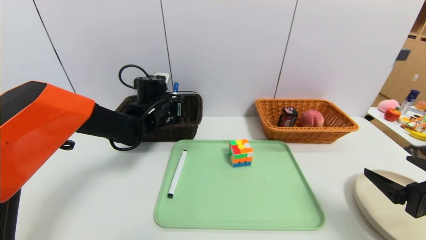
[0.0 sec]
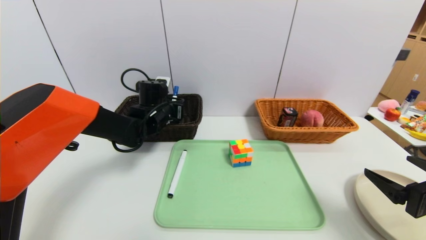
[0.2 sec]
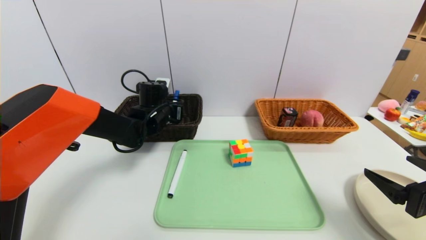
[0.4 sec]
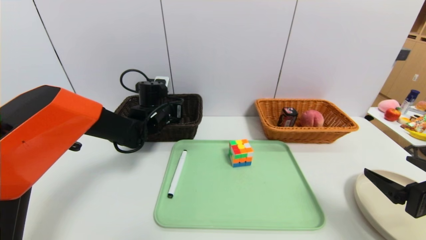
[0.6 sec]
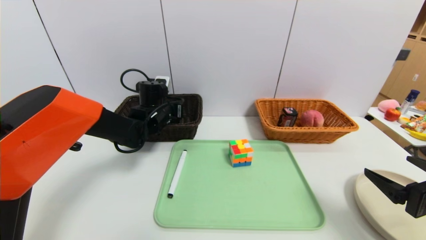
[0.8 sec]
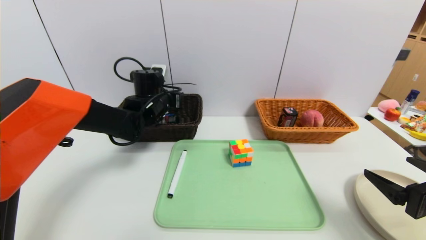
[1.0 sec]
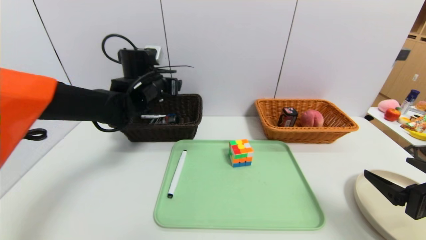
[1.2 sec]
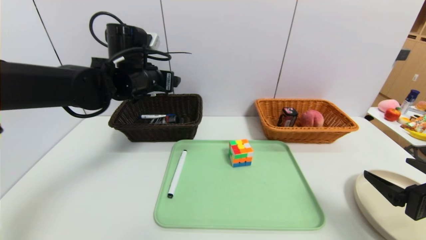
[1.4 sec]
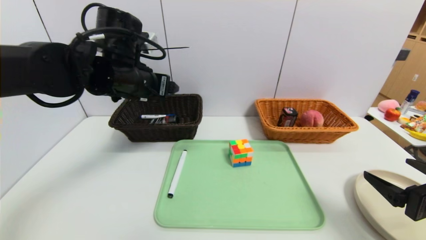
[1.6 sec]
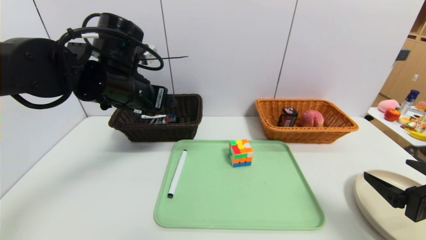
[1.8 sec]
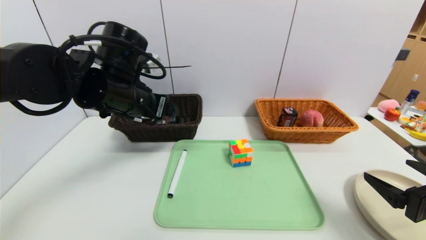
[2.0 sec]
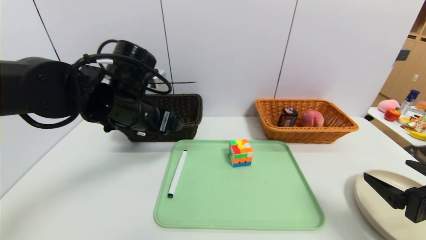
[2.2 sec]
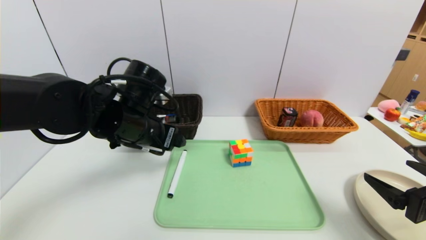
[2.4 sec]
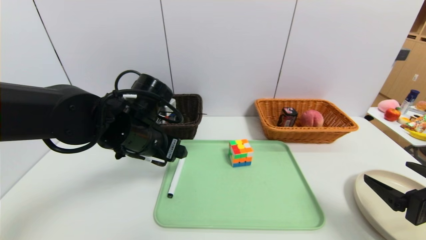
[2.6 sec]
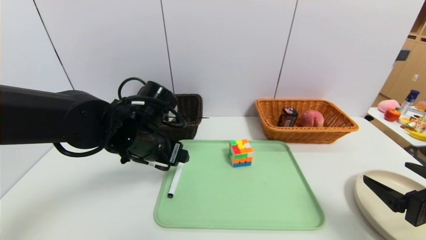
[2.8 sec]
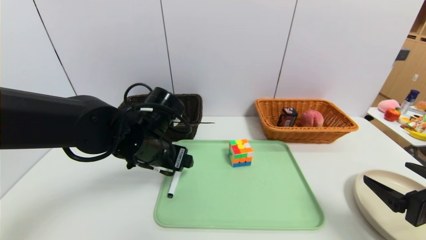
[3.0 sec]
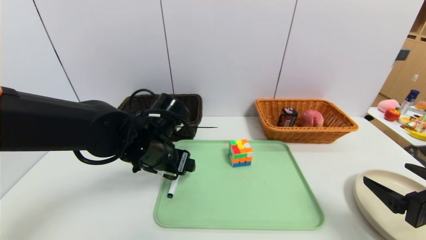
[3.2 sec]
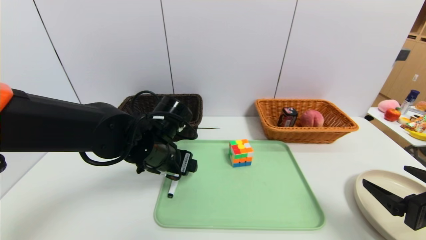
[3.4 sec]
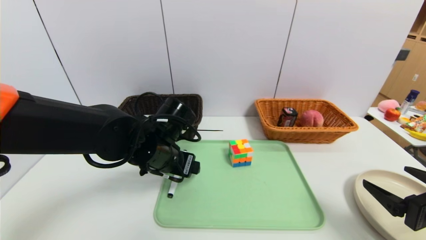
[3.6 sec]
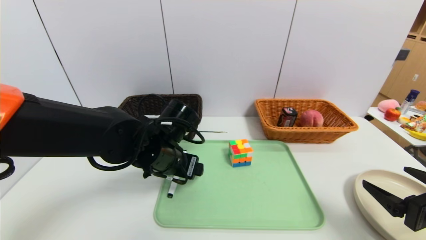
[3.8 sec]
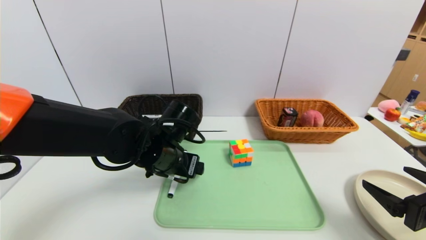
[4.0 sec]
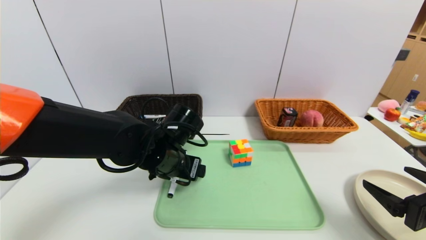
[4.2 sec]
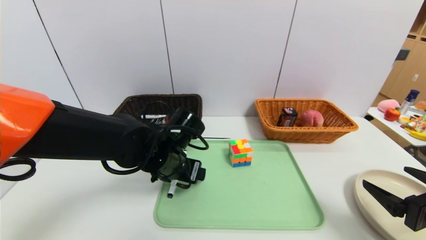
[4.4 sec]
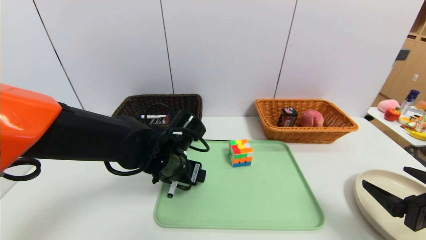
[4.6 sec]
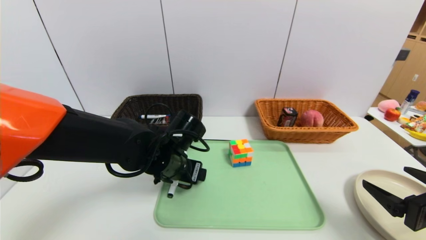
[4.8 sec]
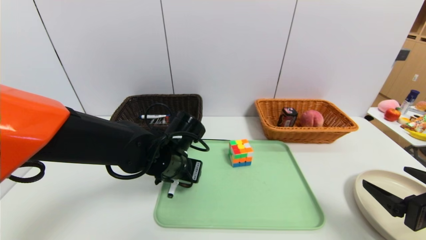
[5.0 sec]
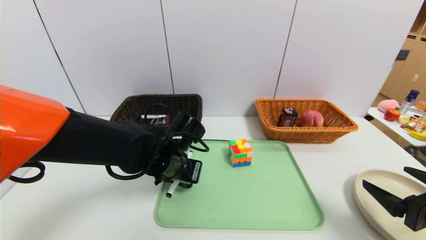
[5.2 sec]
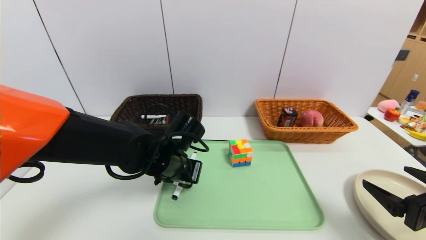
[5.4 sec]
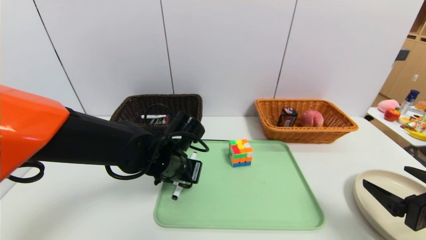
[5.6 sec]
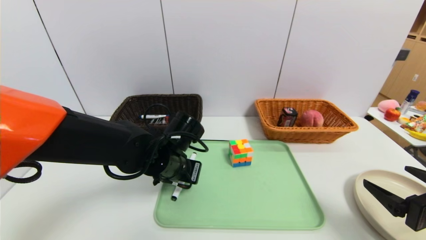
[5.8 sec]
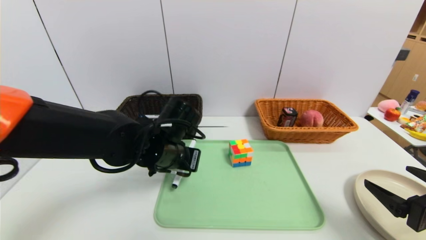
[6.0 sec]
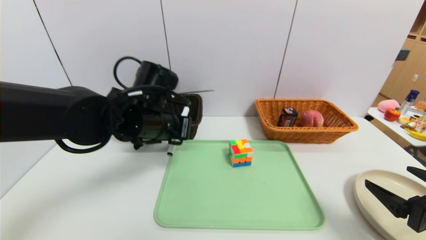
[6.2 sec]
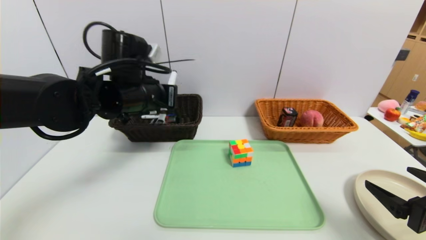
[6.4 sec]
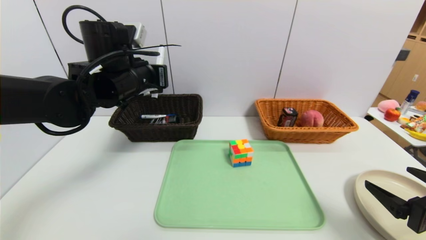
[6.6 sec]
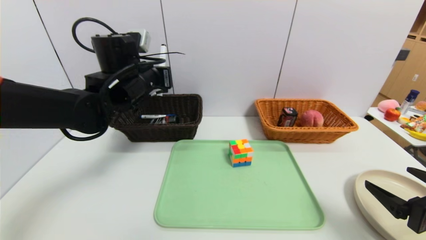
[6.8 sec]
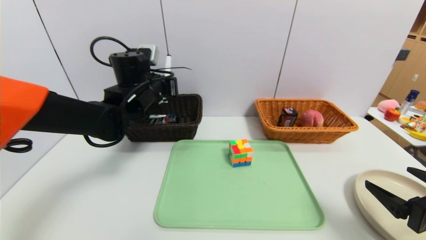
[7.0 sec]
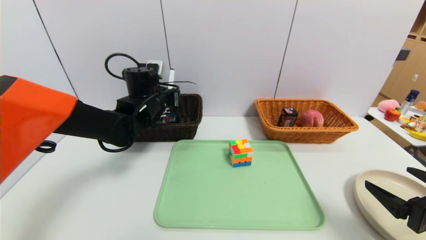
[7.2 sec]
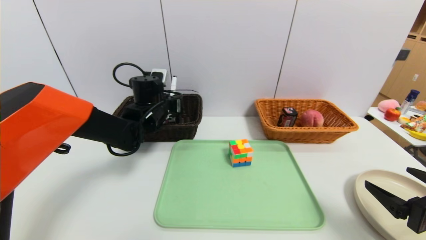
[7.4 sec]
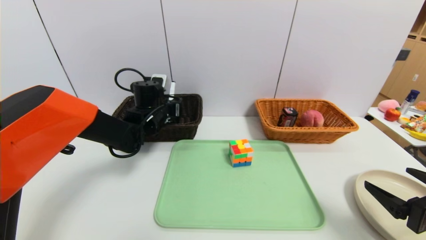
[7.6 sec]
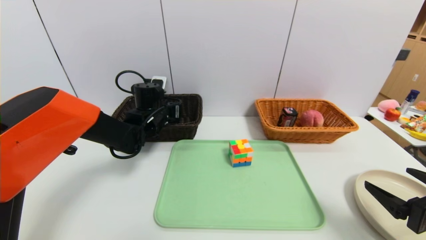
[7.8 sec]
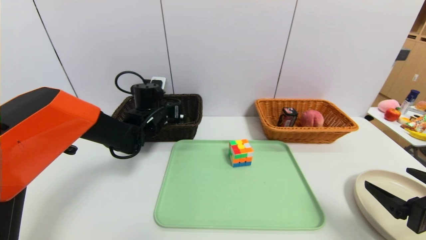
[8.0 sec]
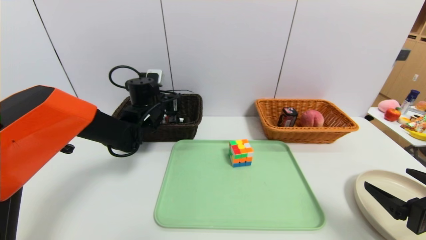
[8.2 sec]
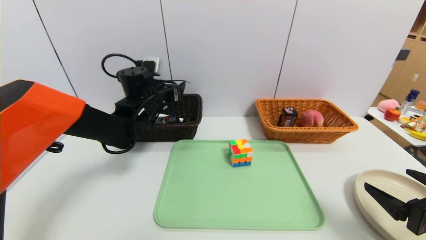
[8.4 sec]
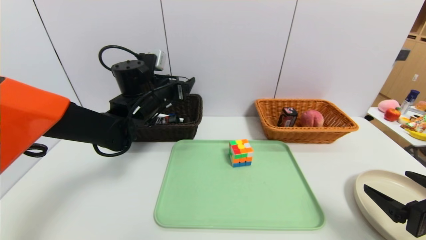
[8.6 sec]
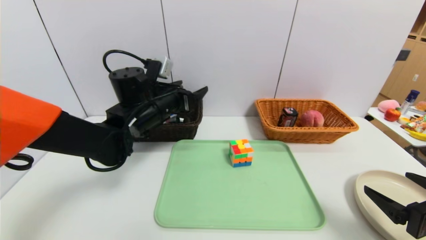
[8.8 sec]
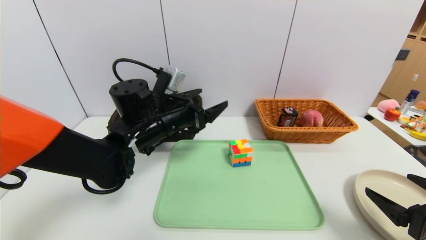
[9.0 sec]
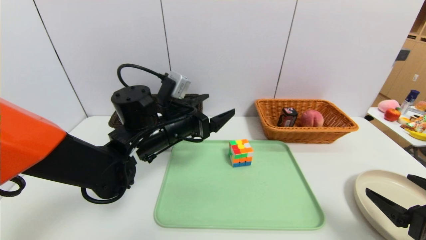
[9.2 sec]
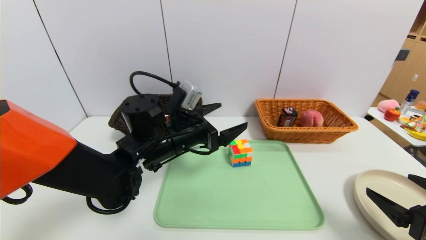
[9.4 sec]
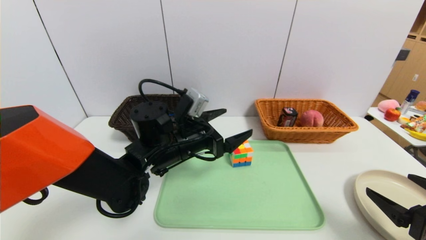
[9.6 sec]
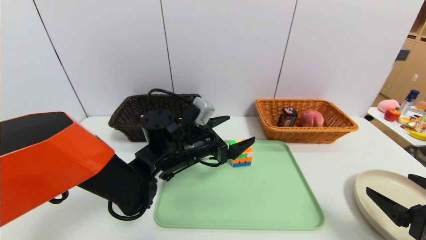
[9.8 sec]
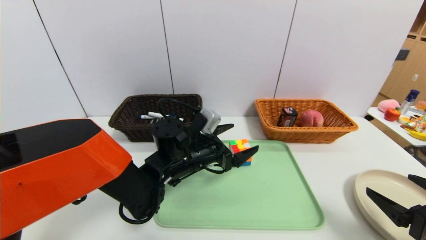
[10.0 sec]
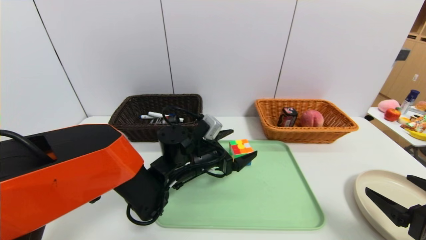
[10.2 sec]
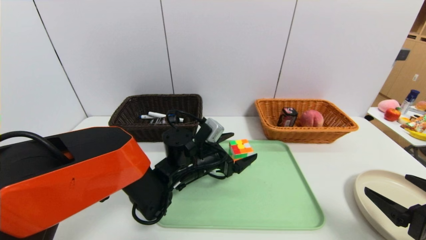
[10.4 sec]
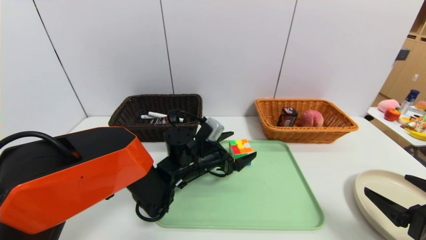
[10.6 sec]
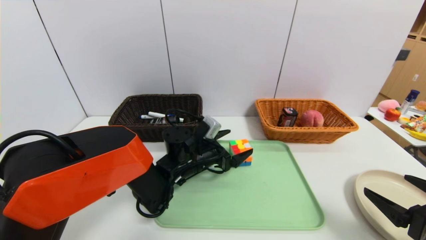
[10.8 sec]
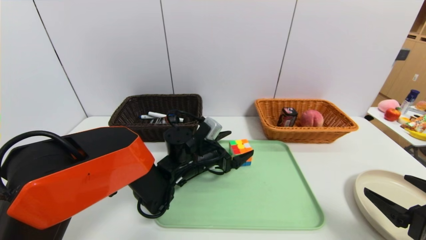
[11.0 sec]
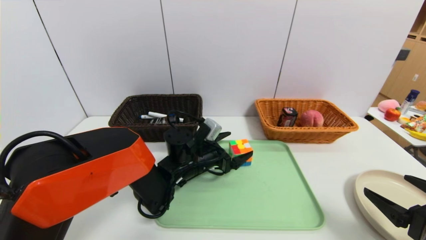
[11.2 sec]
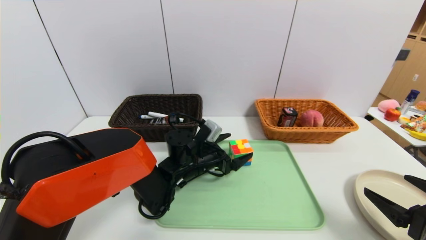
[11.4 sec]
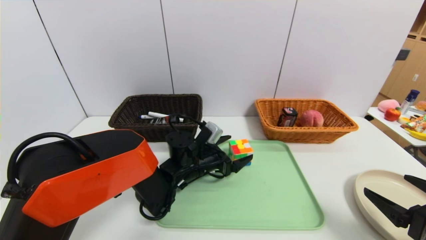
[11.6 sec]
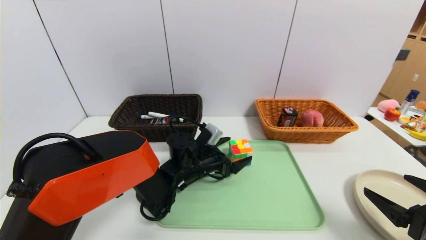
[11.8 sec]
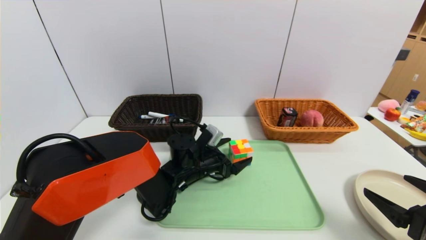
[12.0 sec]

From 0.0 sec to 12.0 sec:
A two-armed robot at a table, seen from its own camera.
Task of the whole recording: place the food in the right basket with the right gripper, and place the non food items in the left basket with the left gripper.
Step, from 1.0 sec to 8.2 sec: Grasp the black marker and put it in the left basket.
From 0.0 sec to 1.6 sec: The left gripper moves upward and backward, approximately 15 cm, and opens up.
From 1.6 sec to 3.0 sec: The left gripper is displaced downward and backward by about 10 cm.
From 3.0 sec to 4.4 sec: The grippers make only small movements.
From 4.4 sec to 6.0 sec: The left gripper closes.
From 6.0 sec to 7.6 sec: The left gripper shifts approximately 15 cm forward and to the left.
From 7.6 sec to 9.0 sec: The left gripper shifts some 10 cm backward, and opens.
From 9.0 sec to 10.4 sec: The left gripper goes about 15 cm downward and to the right.
From 10.4 sec to 12.0 sec: The grippers make only small movements.

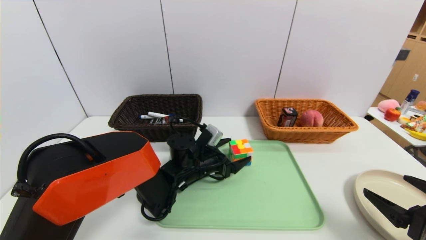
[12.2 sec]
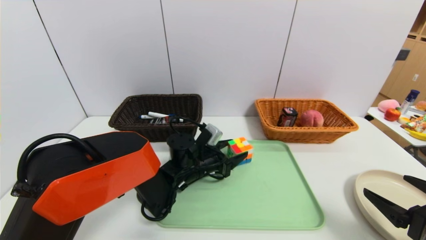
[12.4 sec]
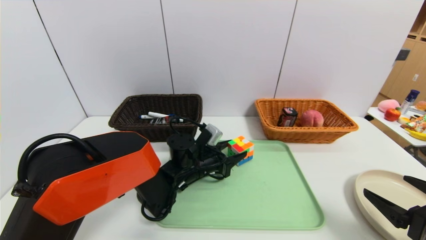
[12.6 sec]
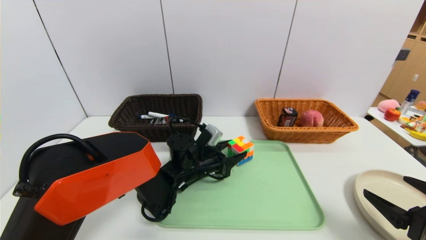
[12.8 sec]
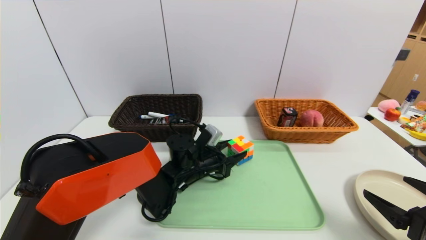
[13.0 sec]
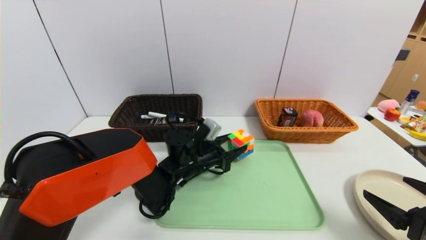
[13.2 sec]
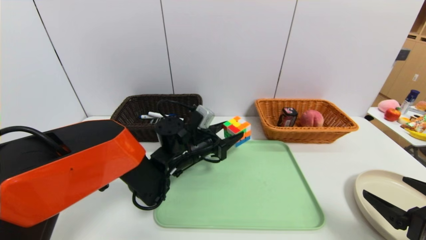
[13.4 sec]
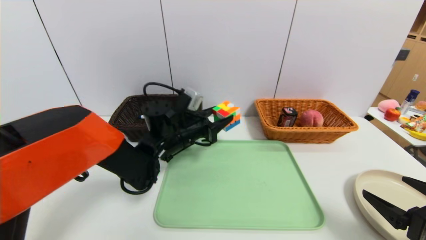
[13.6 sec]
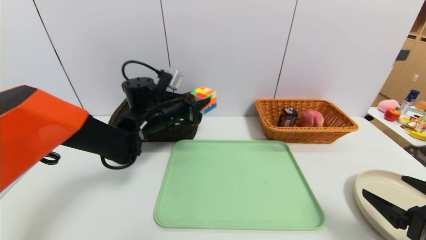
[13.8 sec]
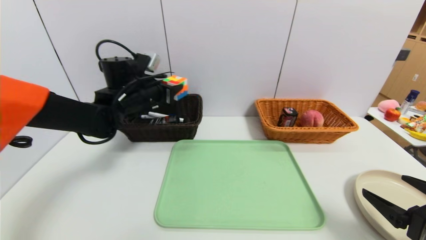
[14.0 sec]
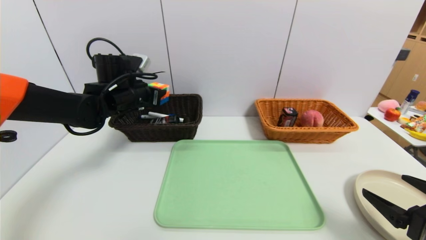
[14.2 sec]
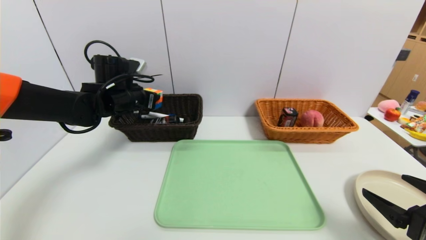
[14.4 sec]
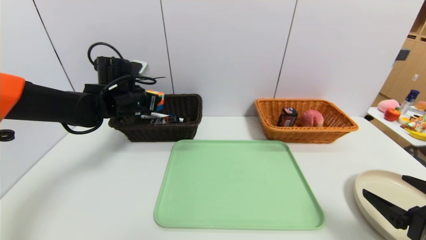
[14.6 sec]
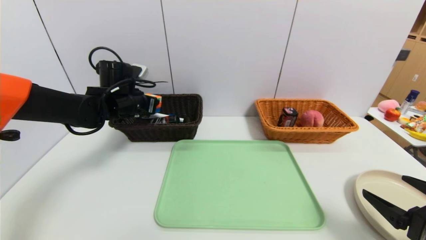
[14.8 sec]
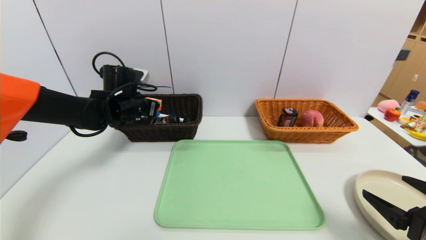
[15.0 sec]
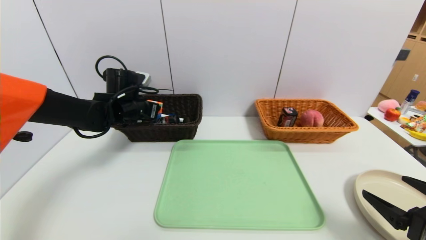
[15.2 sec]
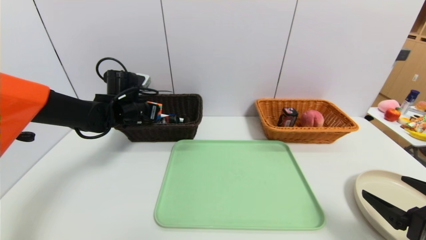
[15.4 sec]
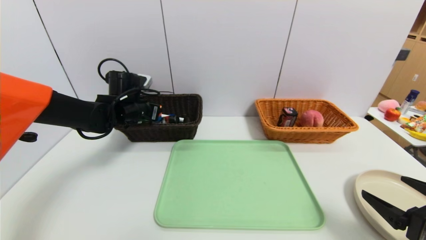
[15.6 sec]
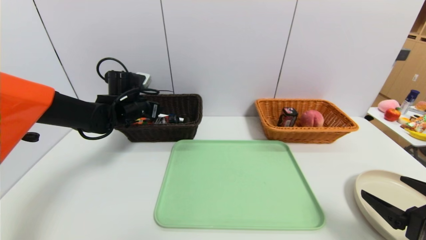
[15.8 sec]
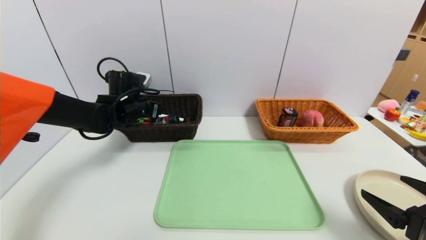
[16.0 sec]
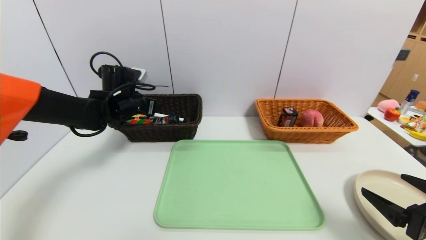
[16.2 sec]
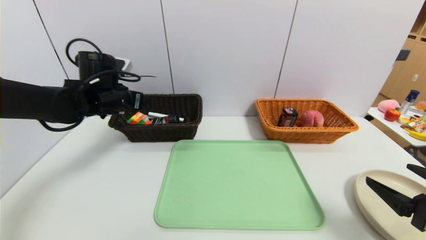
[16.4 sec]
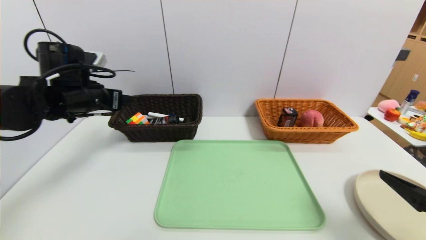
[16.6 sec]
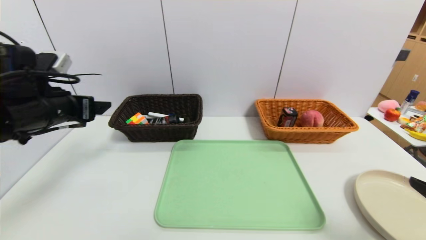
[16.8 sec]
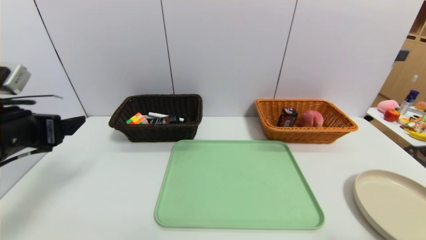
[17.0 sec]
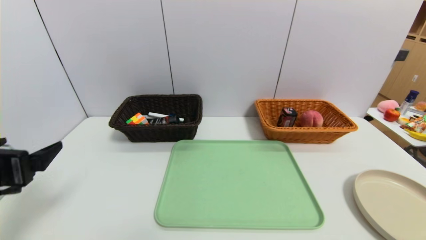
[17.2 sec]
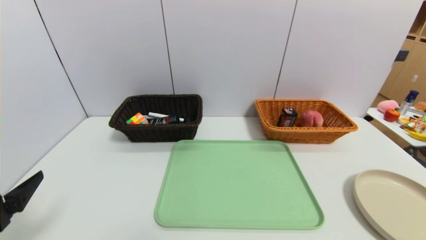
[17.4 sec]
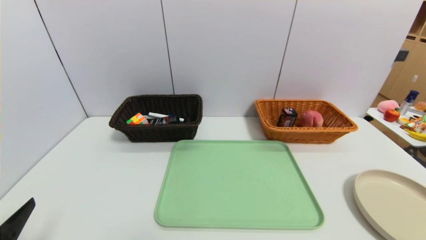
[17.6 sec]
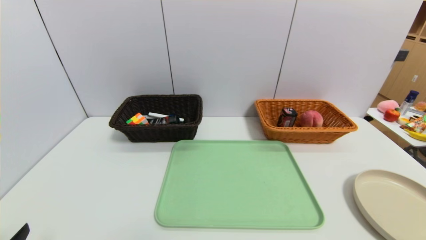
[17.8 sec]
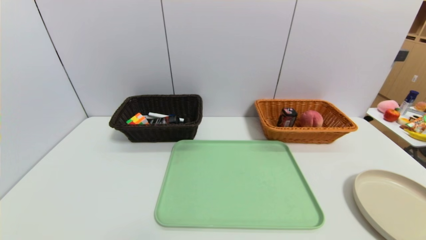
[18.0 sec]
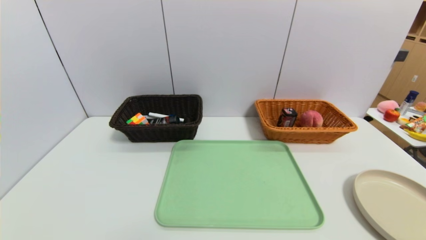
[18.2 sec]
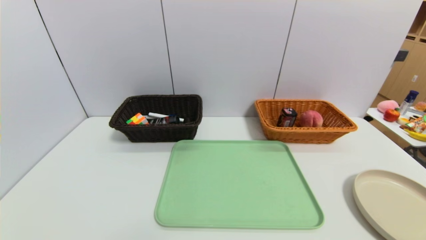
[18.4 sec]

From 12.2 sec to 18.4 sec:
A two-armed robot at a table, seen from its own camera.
Task of the whole recording: place the food in the right basket with the right gripper, and place the non food items in the left basket with the left gripper.
Step, from 12.2 sec to 16.0 sec: Grasp the rubiks cube and put it in the left basket.
From 12.2 sec to 13.8 sec: The left gripper shifts about 15 cm upward and to the left.
From 13.8 sec to 15.4 sec: The left gripper heads to the left, covering roughly 10 cm.
From 15.4 sec to 16.8 sec: The right gripper goes some 10 cm upward and backward; the left gripper heads backward, upward and to the left, covering about 20 cm, and opens its fingers.
From 16.8 sec to 18.4 sec: The left gripper goes about 30 cm backward and downward. The right gripper is displaced backward and downward by approximately 15 cm.
